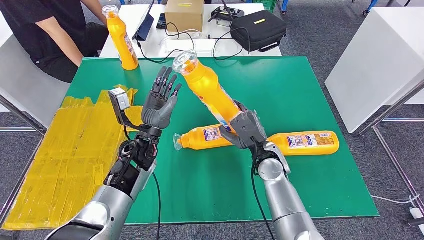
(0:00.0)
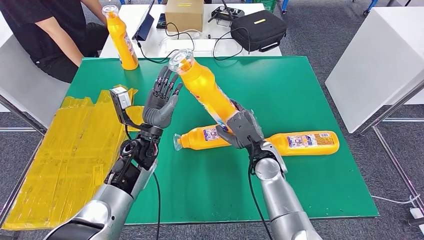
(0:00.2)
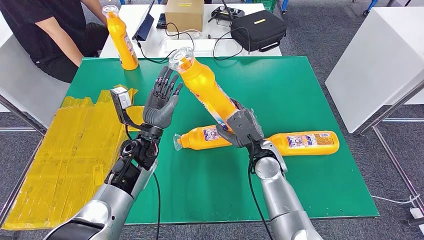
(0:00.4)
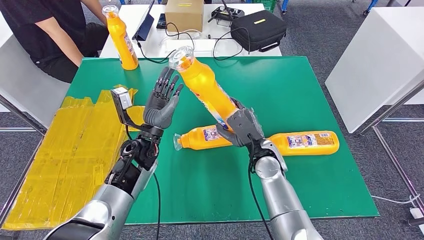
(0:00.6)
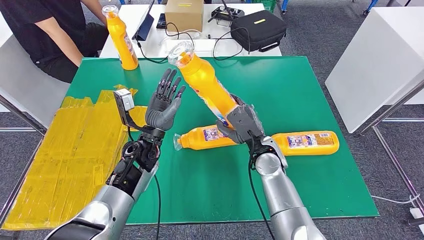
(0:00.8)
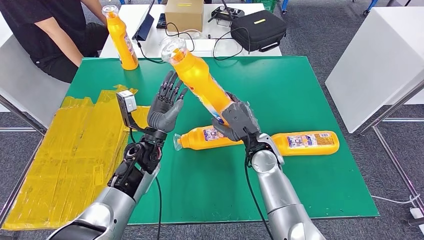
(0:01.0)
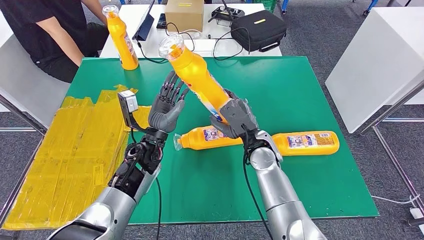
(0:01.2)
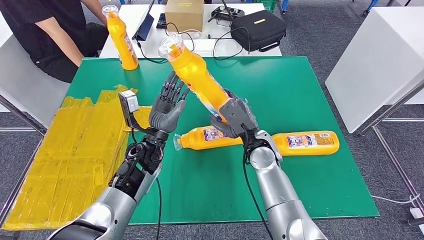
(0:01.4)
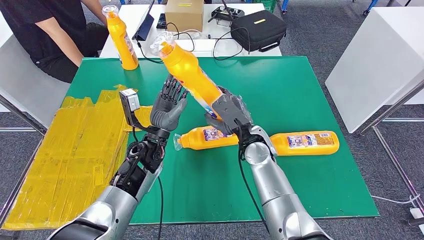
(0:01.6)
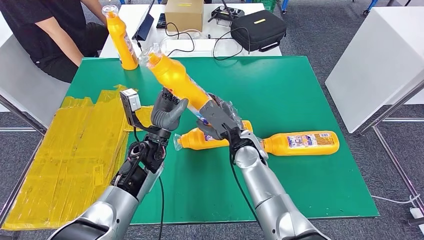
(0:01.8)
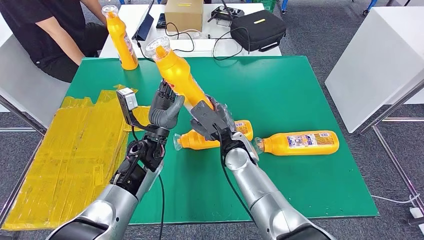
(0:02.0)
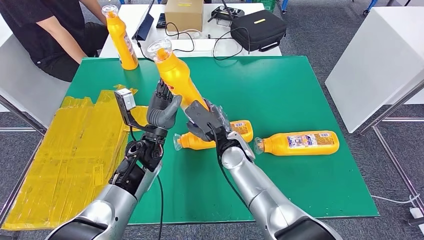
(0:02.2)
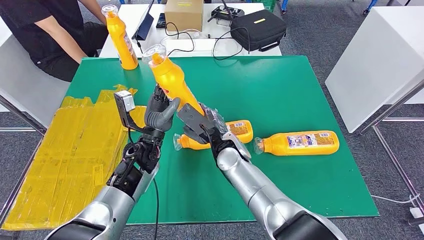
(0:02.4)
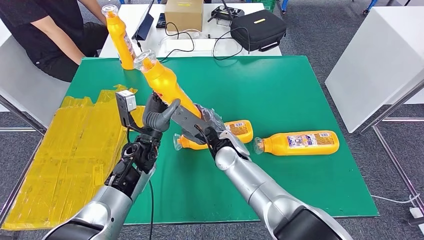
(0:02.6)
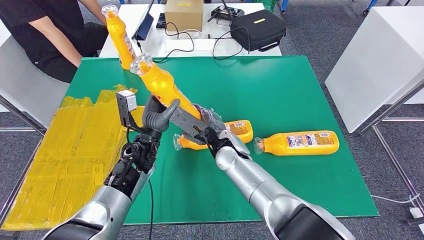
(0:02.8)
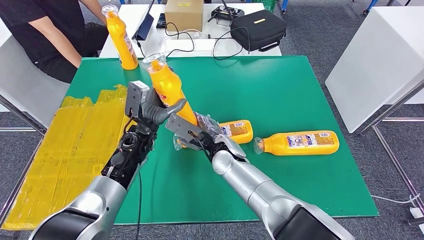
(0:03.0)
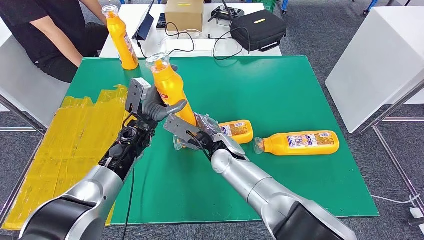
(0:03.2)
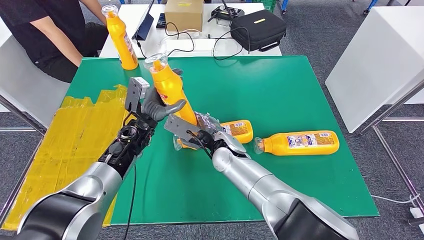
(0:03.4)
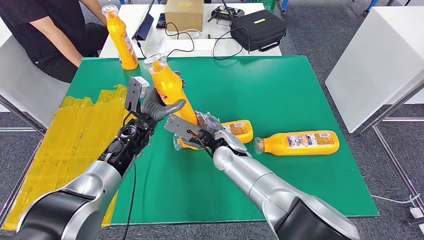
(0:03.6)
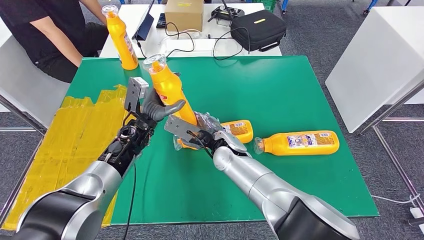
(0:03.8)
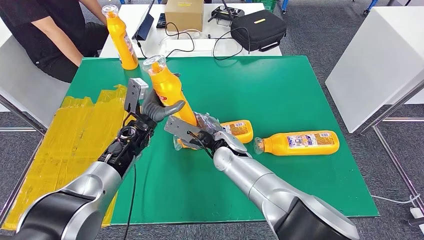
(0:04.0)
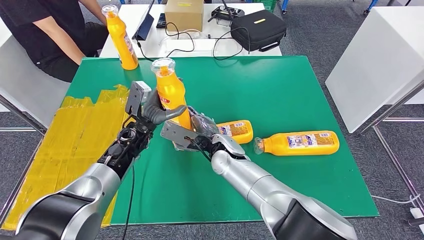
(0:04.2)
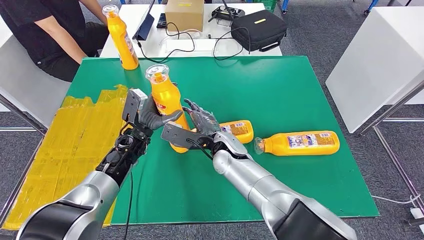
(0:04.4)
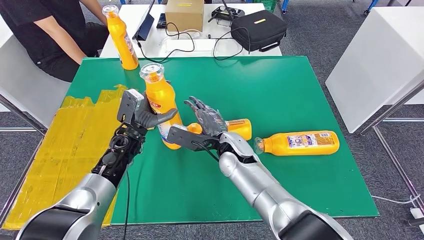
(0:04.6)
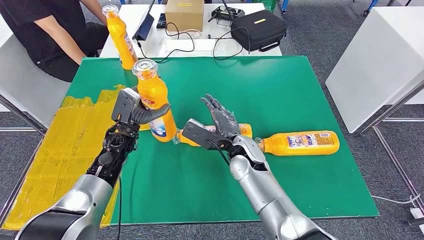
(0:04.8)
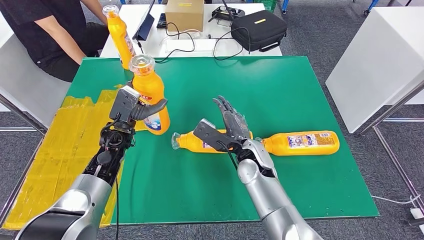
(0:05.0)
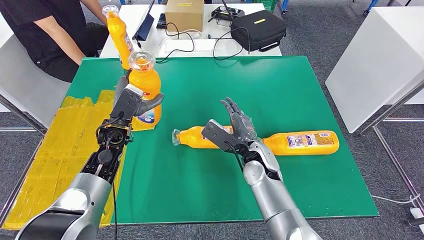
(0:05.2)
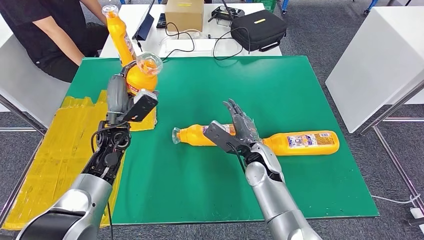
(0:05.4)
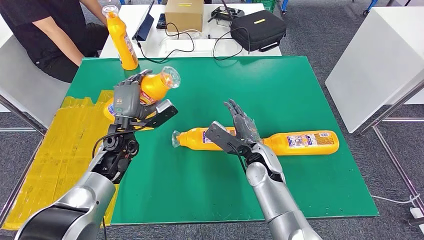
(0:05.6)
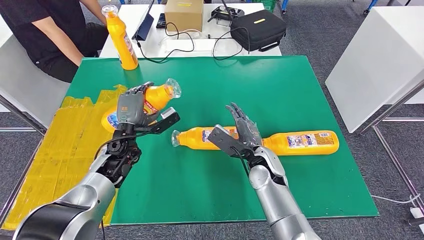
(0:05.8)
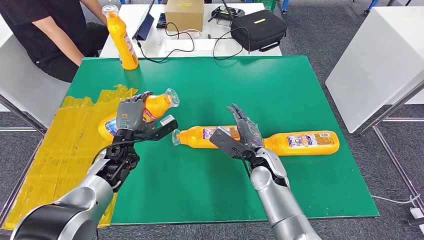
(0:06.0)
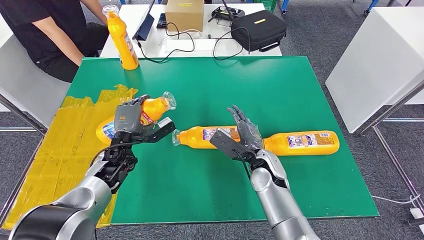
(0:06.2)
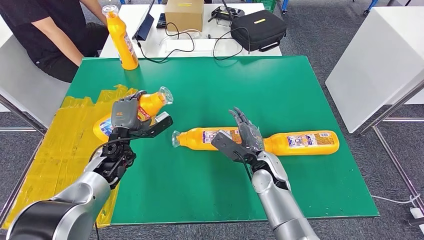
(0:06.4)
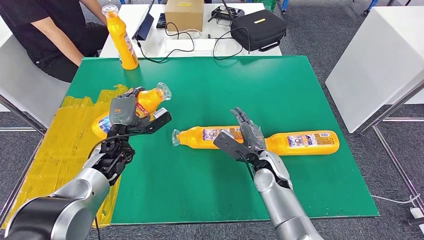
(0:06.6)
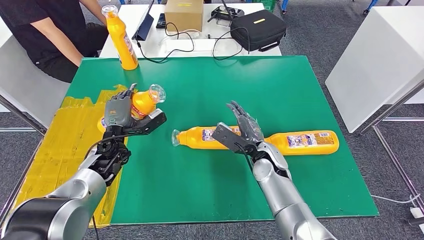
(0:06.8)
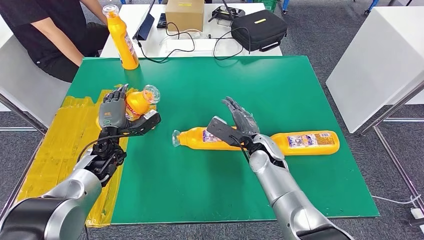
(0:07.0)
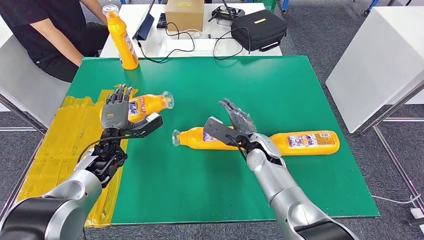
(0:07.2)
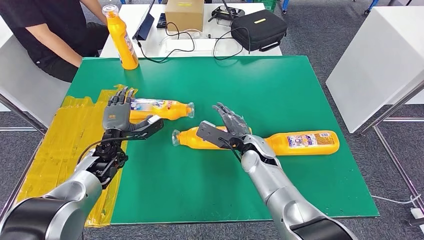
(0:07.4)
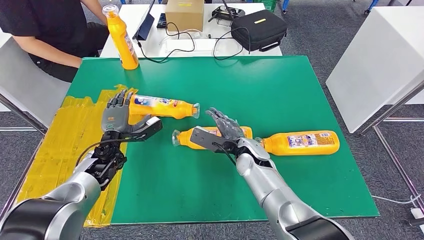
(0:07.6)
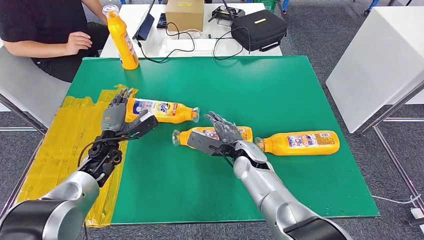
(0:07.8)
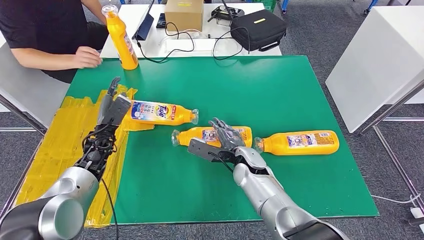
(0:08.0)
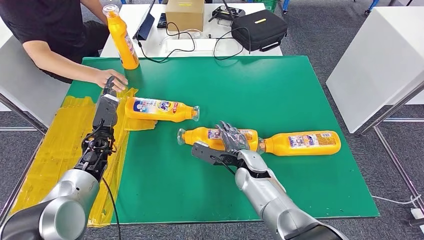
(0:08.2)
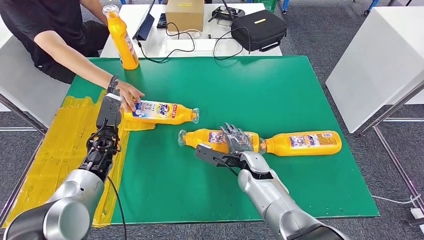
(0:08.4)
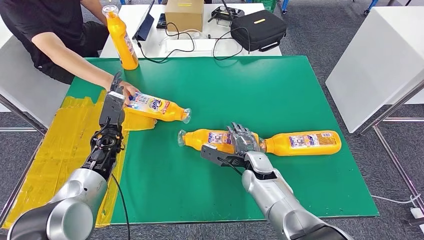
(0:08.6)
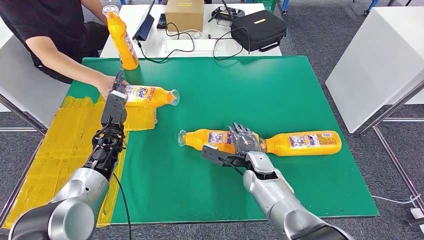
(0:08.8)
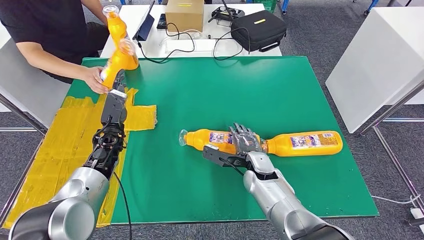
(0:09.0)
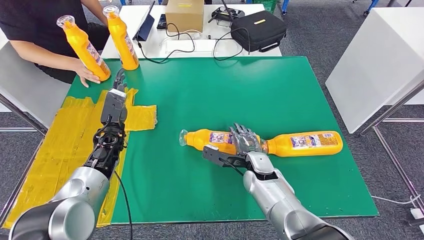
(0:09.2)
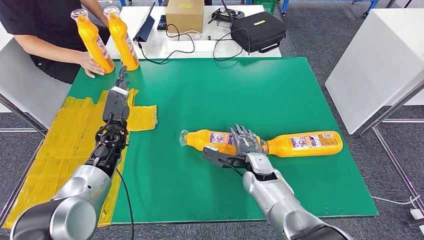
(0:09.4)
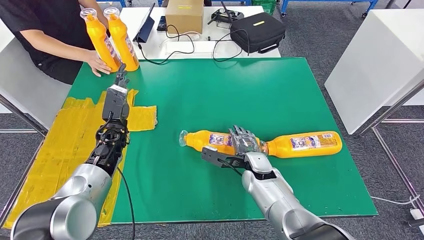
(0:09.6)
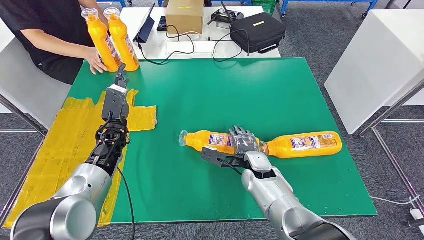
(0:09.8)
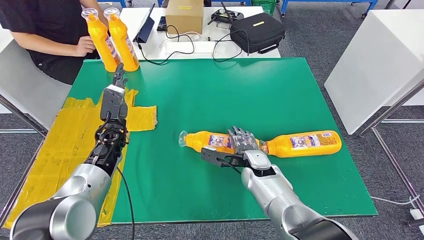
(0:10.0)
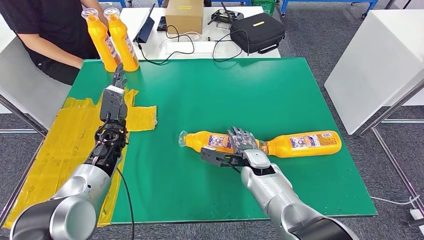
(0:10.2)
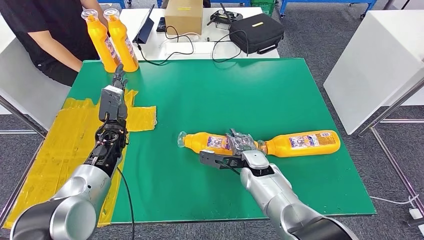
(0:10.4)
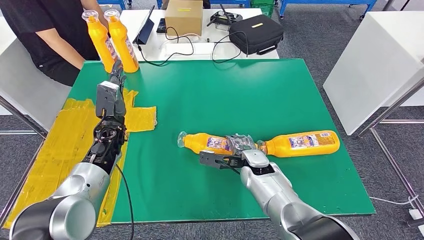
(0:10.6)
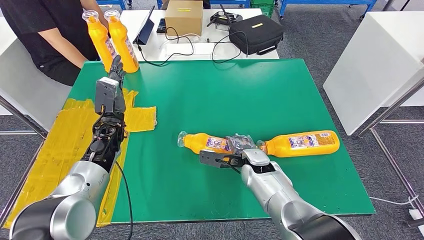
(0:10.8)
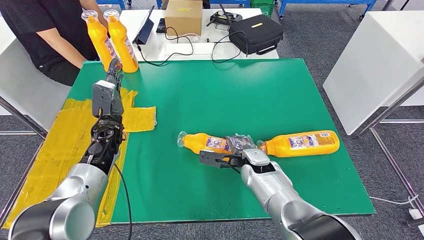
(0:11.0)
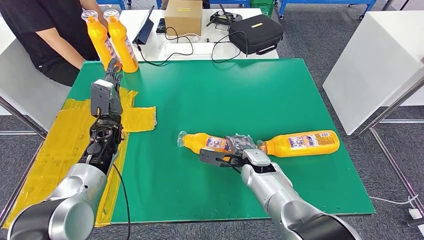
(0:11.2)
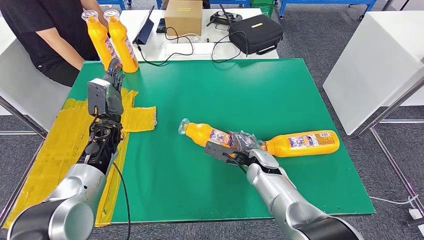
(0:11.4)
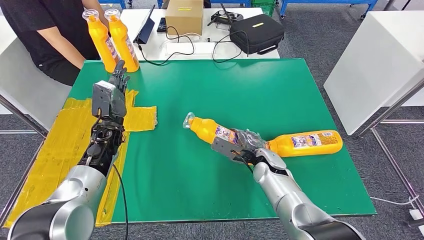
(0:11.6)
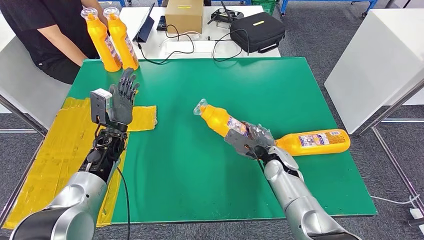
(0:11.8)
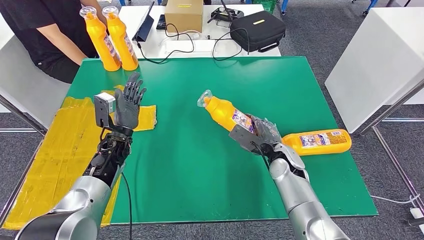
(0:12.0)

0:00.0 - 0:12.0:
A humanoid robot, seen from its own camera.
Step, 0:01.0 - 0:07.6: Flip the fast-moving consumer goods bottle to the front side.
0:00.0 - 0:01.6: The right hand moves some 5 cm.
0:03.0 - 0:04.4: The hands move only a little.
0:04.4 - 0:06.0: The right hand is displaced to the right by some 10 cm.
0:06.0 - 0:07.6: The left hand moves about 5 cm.
0:07.6 - 0:09.0: The right hand moves roughly 5 cm.
0:09.0 - 0:10.4: The hands move only a little.

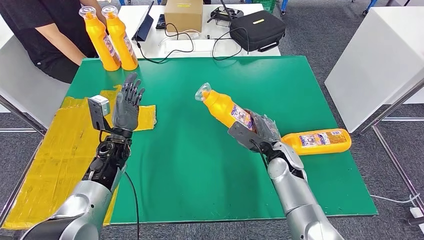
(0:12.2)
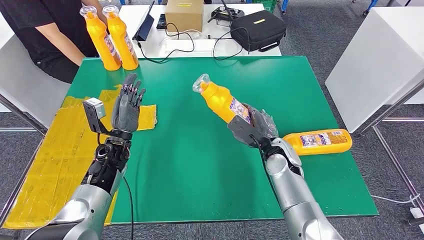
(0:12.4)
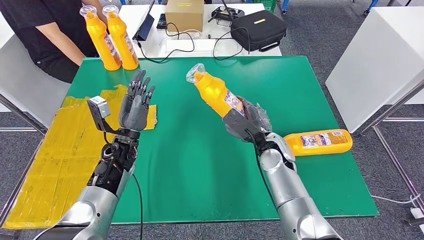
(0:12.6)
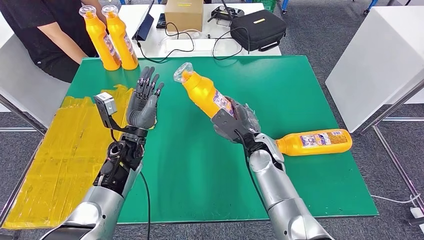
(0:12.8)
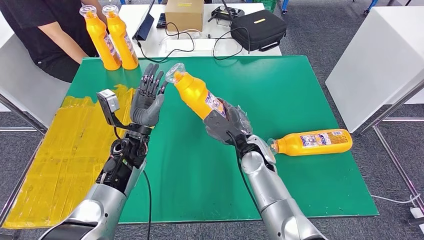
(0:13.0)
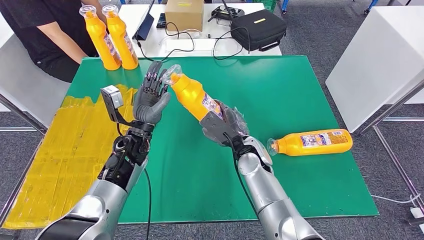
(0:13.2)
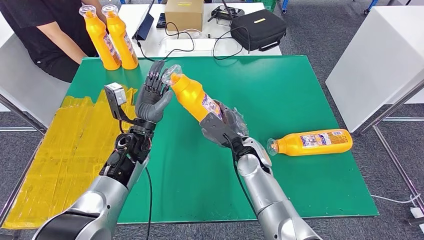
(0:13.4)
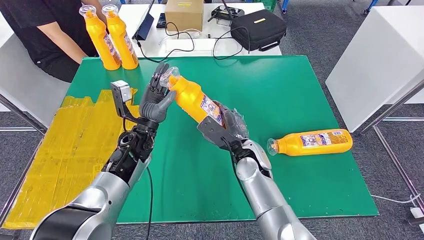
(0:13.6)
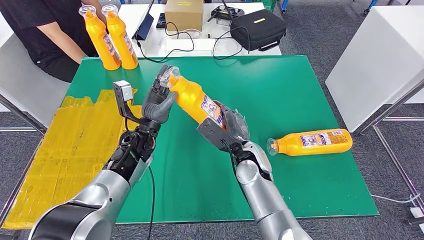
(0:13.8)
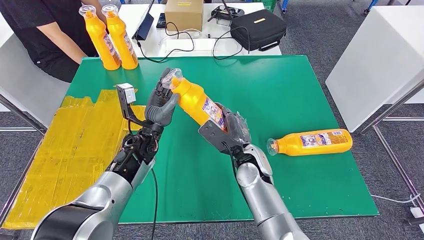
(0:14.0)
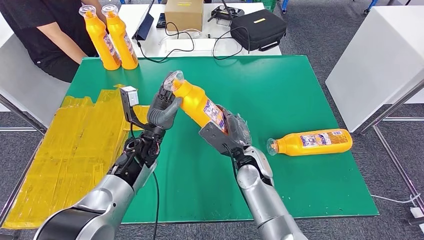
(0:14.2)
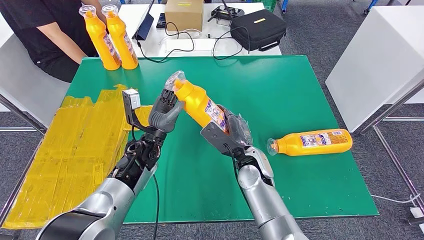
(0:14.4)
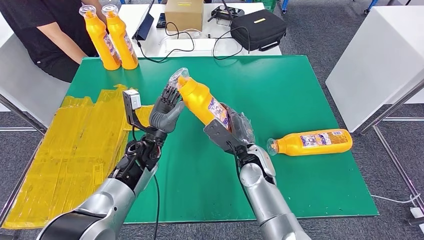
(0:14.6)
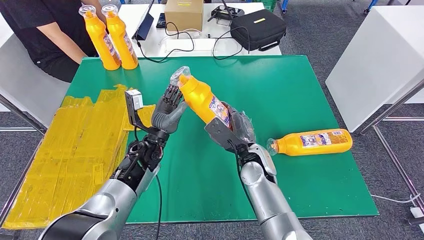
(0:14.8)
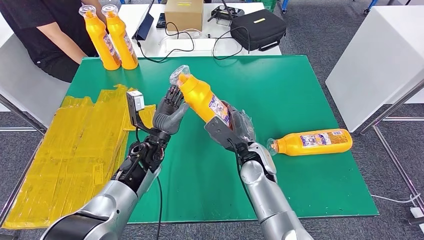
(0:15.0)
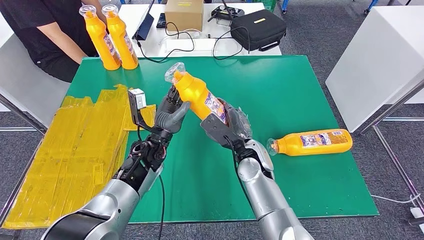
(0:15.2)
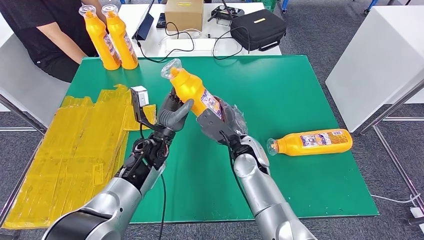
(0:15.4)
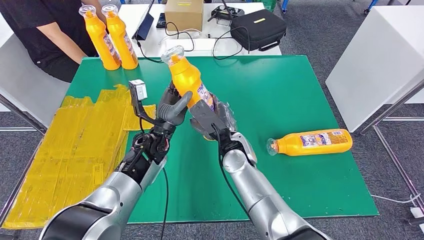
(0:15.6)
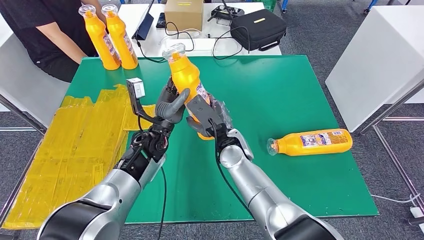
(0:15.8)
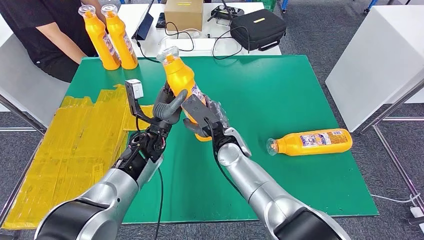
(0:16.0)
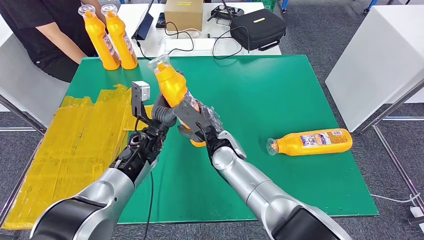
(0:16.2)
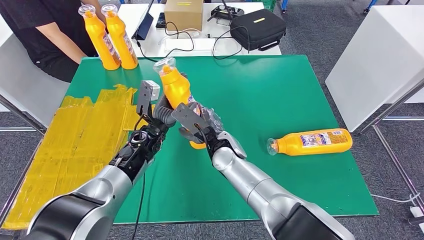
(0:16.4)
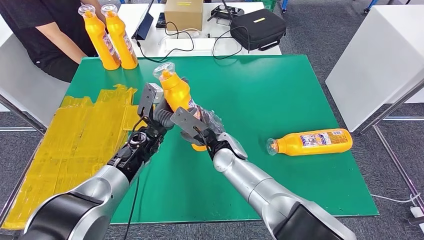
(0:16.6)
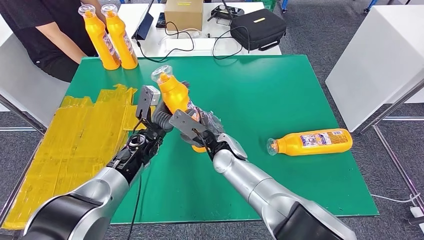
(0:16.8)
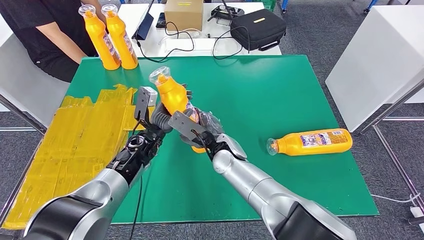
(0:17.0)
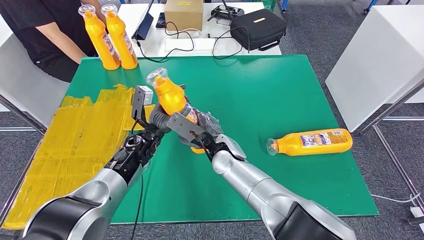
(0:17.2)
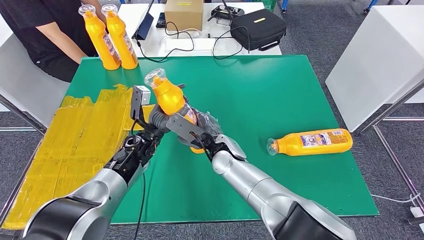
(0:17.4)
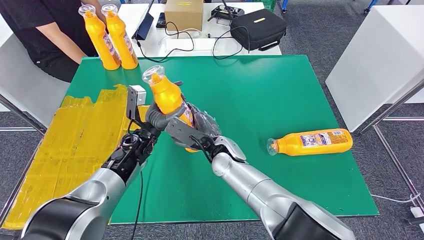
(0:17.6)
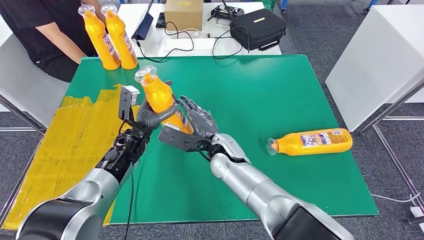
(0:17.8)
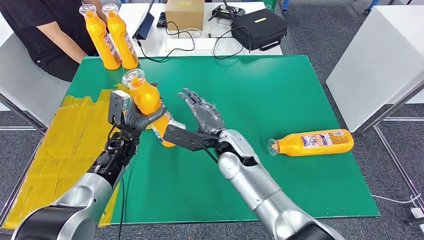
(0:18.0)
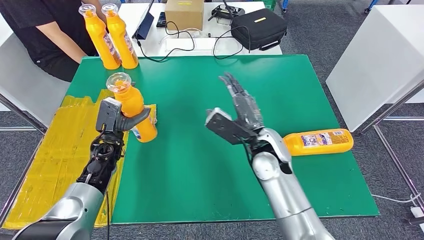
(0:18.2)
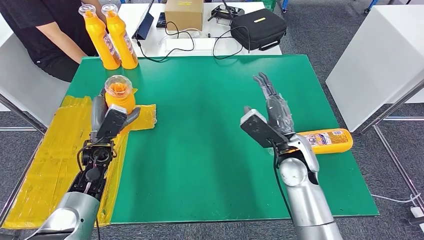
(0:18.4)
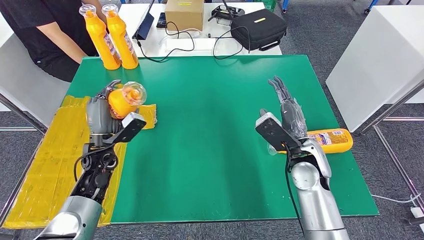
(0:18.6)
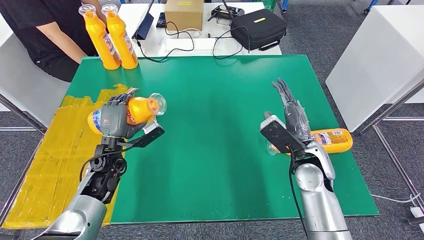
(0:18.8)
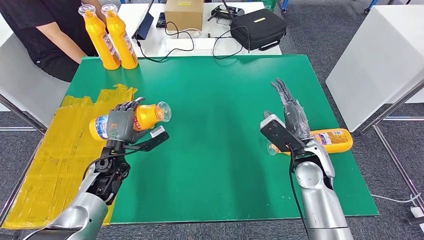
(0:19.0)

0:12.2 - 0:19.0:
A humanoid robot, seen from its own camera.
0:13.6 - 0:15.0: The hands make only small movements.
0:15.0 - 0:16.2: The right hand moves to the left, about 10 cm.
0:16.2 - 0:17.6: The hands stay close to where they were, moving slightly.
0:17.6 - 0:19.0: The left hand shifts roughly 10 cm to the left. The right hand heads to the right, covering roughly 20 cm.
